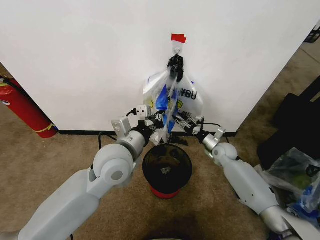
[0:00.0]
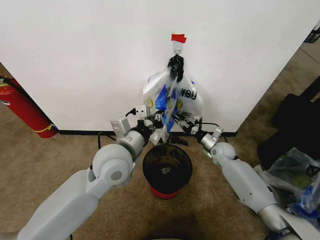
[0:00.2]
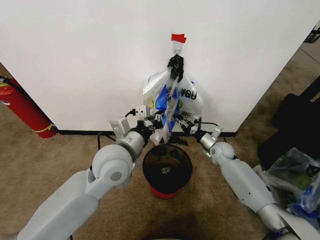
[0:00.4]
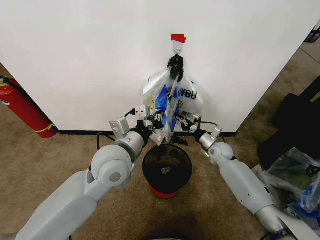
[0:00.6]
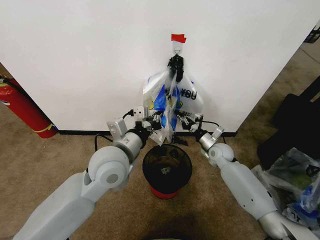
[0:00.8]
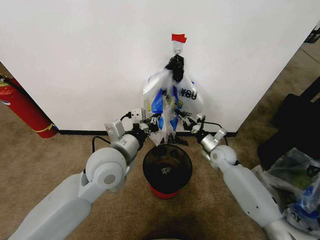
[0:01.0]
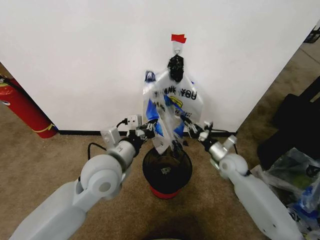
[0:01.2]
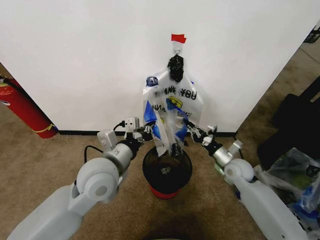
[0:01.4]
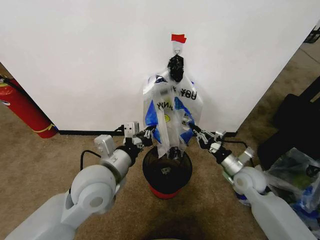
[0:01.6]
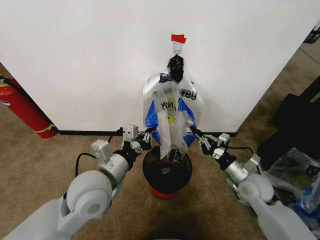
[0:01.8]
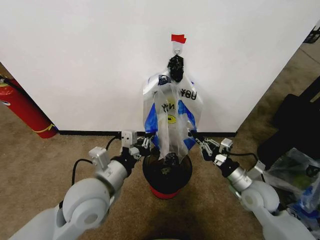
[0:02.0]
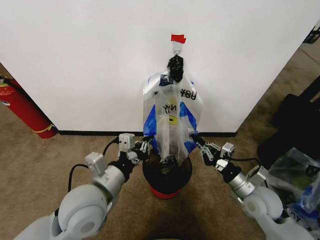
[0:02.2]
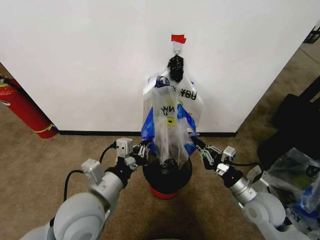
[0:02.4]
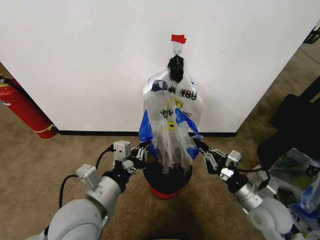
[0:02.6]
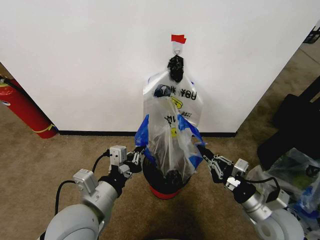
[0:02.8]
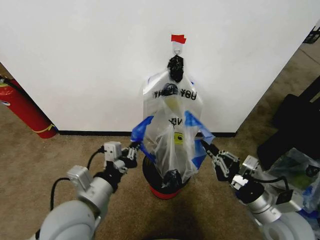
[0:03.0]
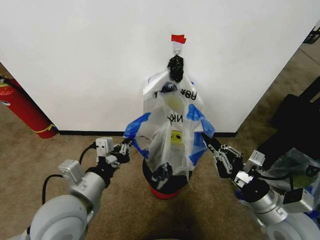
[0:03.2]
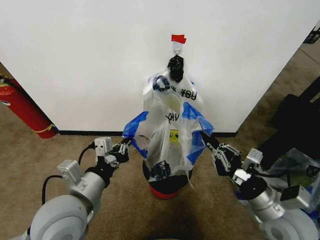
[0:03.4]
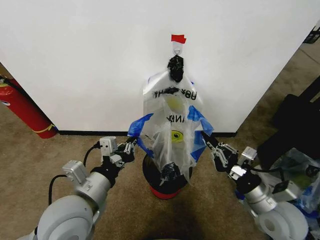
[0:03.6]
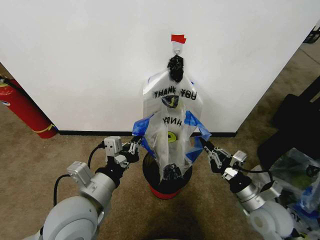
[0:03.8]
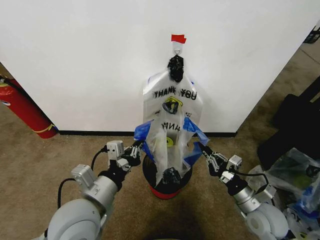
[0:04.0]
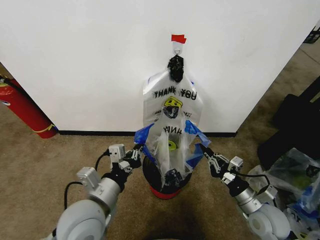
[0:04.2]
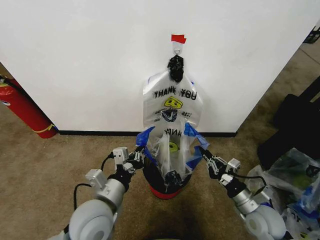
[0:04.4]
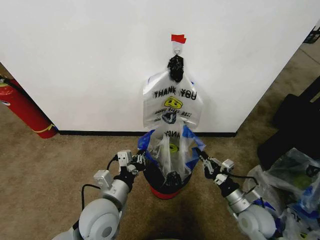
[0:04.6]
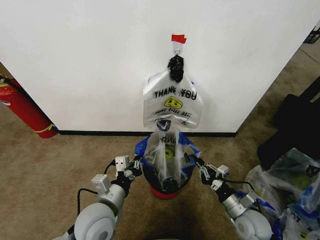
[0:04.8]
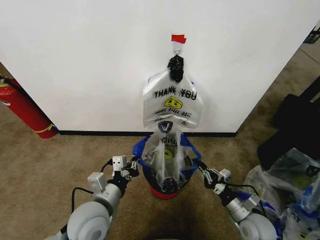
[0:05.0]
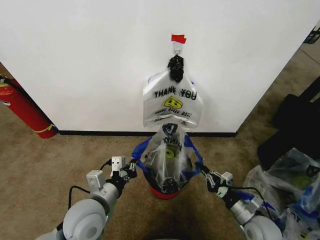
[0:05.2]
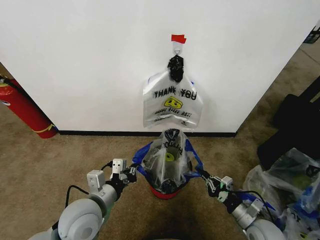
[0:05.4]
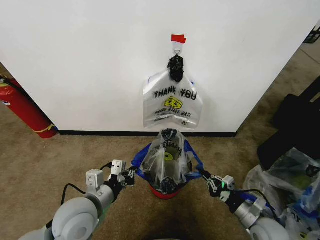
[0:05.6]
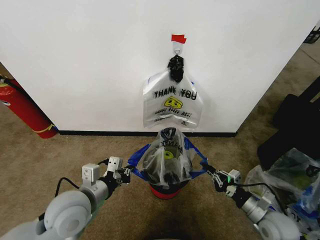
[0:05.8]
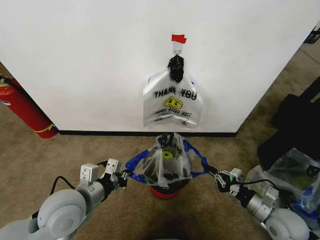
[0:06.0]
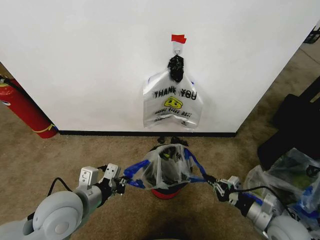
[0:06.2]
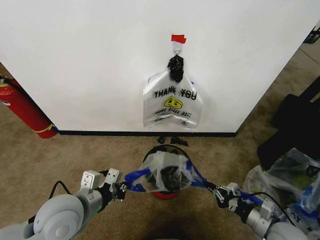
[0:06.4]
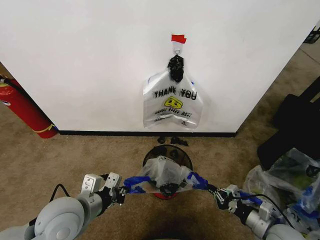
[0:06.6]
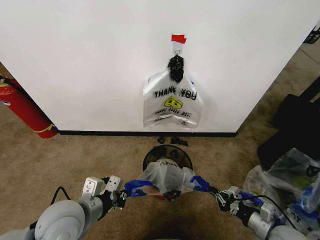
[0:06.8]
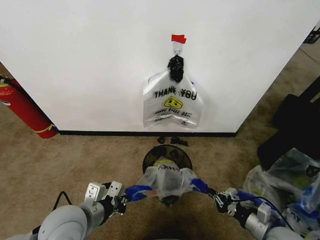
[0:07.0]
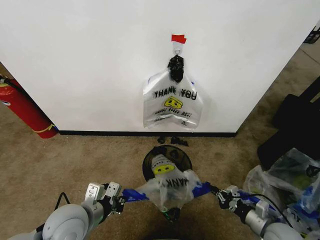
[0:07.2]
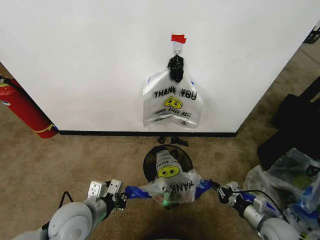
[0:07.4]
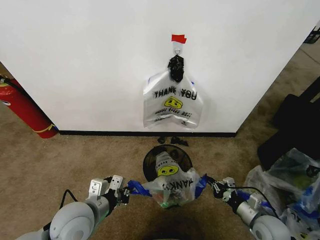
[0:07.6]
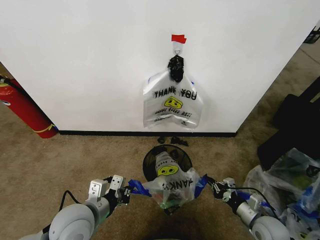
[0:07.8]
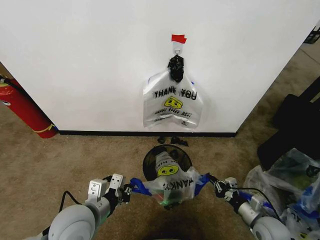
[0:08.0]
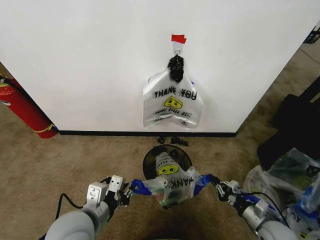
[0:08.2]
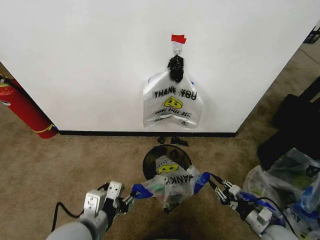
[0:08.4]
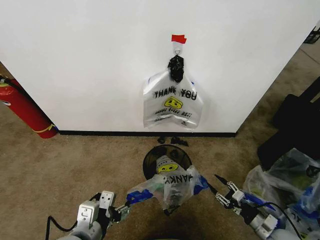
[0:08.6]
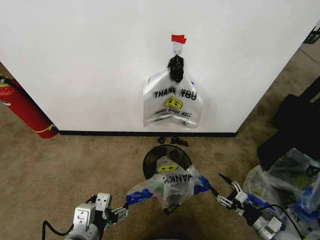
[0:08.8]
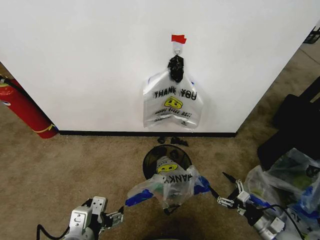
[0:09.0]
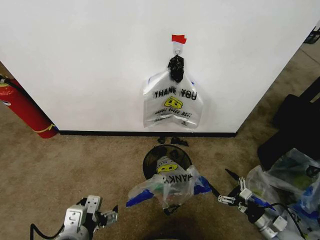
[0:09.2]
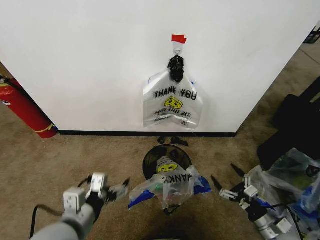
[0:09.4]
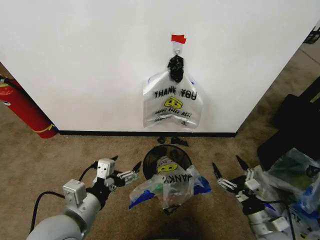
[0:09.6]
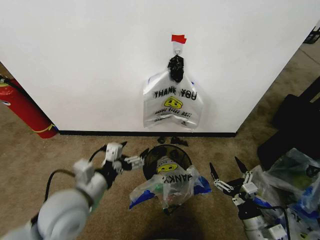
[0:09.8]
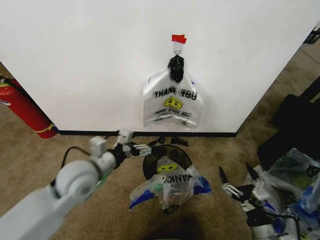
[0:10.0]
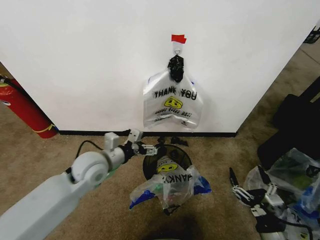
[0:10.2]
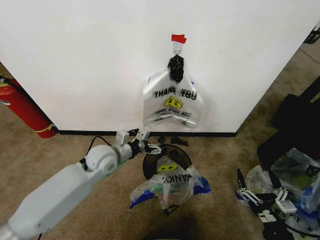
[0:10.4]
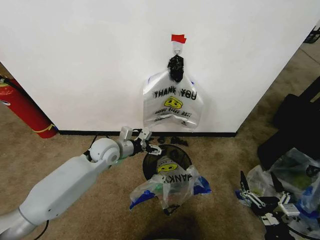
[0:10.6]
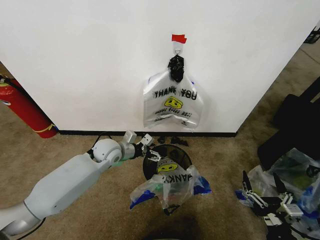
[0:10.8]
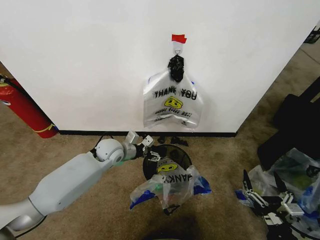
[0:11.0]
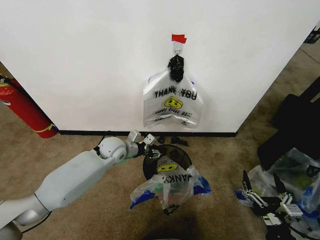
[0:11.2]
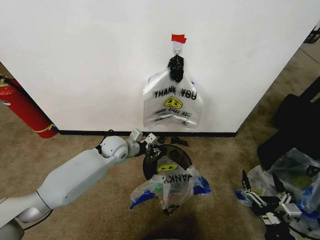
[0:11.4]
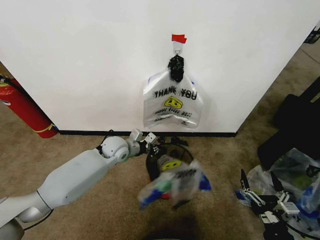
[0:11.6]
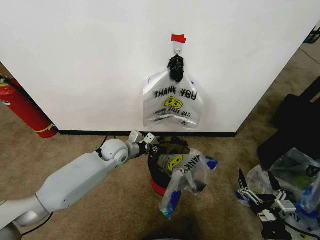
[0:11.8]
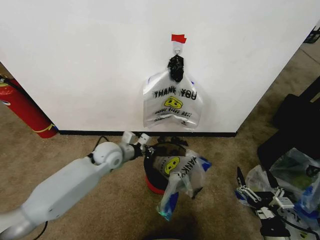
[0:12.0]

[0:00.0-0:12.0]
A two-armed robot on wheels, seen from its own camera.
Task of the whole recording: Pick up the garbage bag from the wall and place it over the trash bin.
0:00.0 to 0:01.6: The right gripper heads backward, covering roughly 15 cm, and closes its fingers. The left gripper changes place by some 5 cm.
0:01.6 to 0:03.0: The left gripper shifts some 10 cm backward, while the right gripper moves backward, about 15 cm.
0:03.0 to 0:04.4: The two grippers go roughly 5 cm downward.
0:04.4 to 0:06.0: The left gripper goes approximately 5 cm to the left. Meanwhile the right gripper heads to the right, covering approximately 5 cm.
0:06.0 to 0:07.6: The right gripper travels downward by roughly 5 cm.
0:07.6 to 0:09.0: The right gripper ends up some 5 cm from where it was, and opens; the left gripper moves backward, about 10 cm, and opens.
0:09.0 to 0:10.4: The left gripper travels forward by roughly 25 cm, while the right gripper goes approximately 15 cm upward, to the left and backward.
0:10.4 to 0:12.0: The left gripper closes.

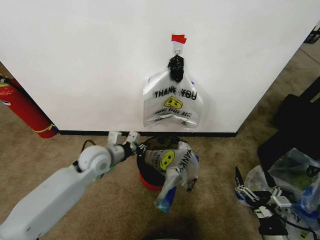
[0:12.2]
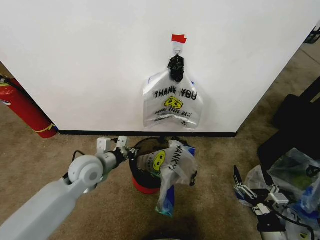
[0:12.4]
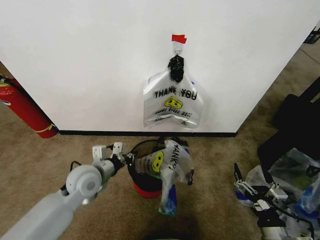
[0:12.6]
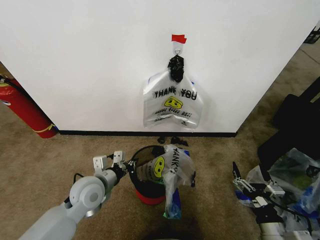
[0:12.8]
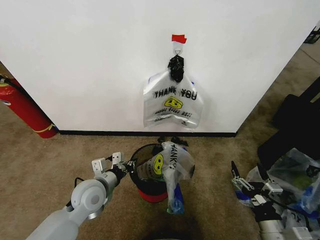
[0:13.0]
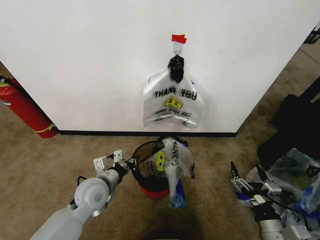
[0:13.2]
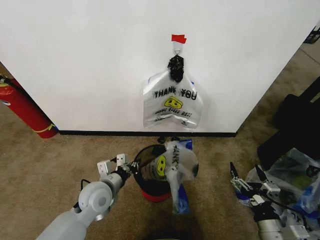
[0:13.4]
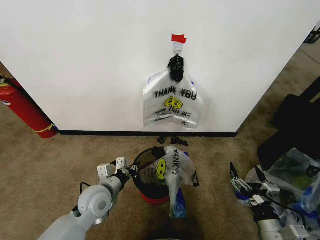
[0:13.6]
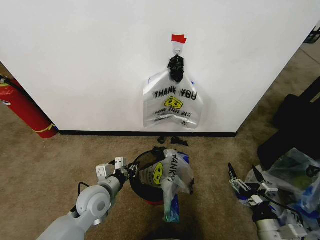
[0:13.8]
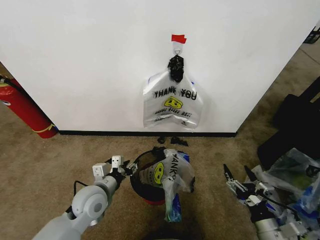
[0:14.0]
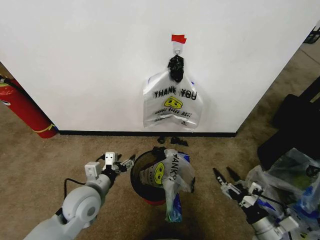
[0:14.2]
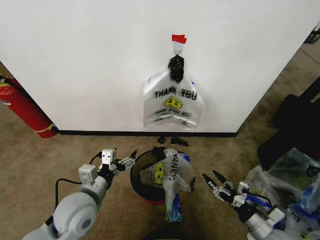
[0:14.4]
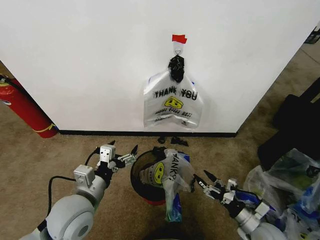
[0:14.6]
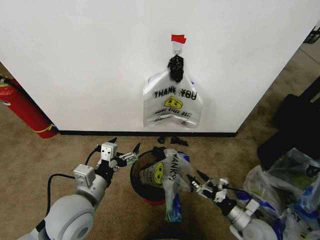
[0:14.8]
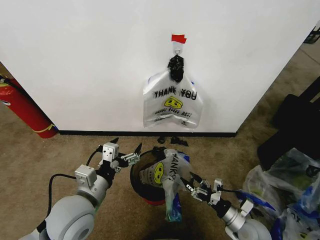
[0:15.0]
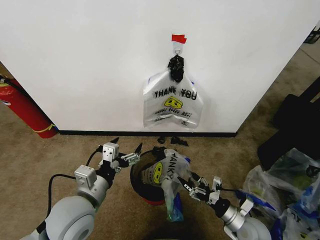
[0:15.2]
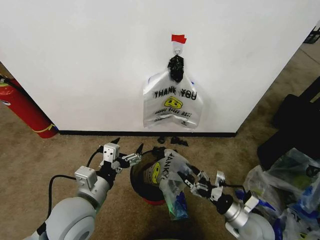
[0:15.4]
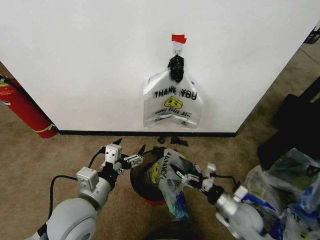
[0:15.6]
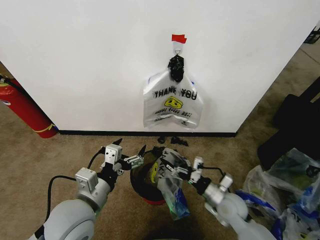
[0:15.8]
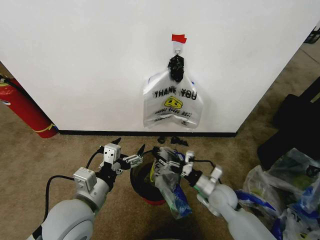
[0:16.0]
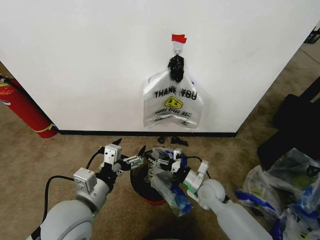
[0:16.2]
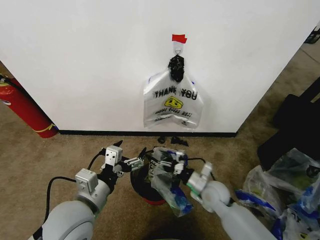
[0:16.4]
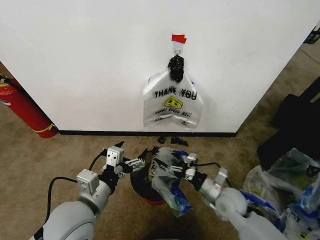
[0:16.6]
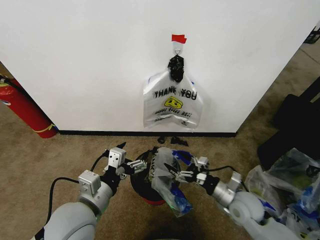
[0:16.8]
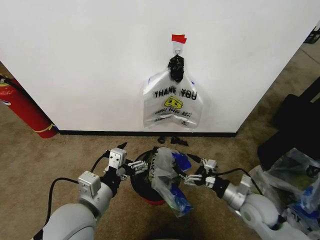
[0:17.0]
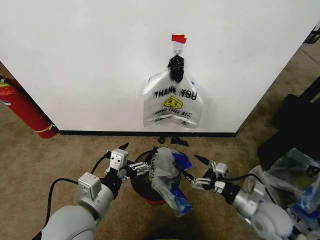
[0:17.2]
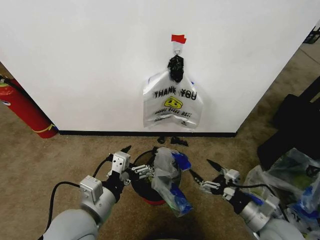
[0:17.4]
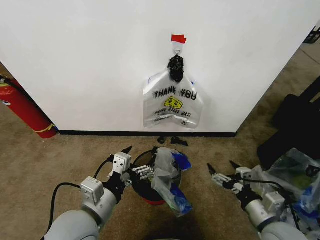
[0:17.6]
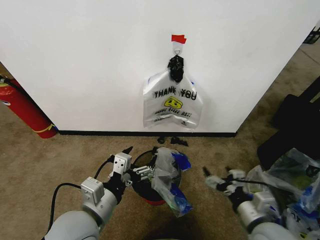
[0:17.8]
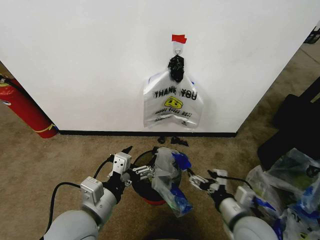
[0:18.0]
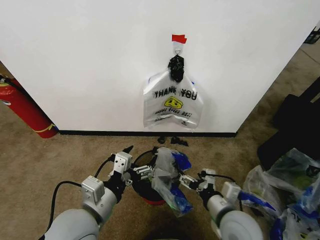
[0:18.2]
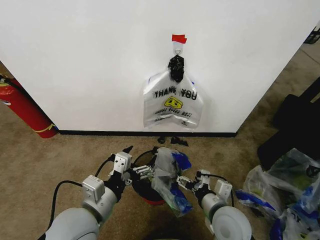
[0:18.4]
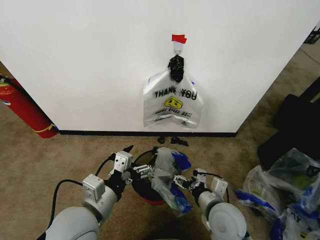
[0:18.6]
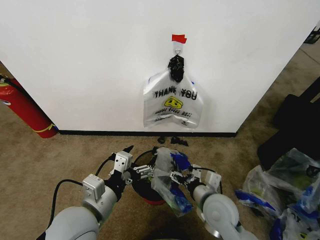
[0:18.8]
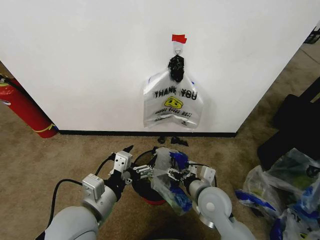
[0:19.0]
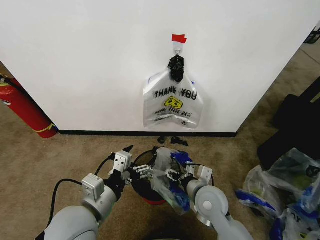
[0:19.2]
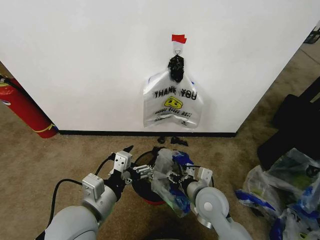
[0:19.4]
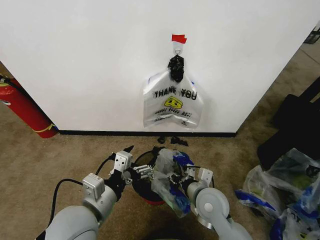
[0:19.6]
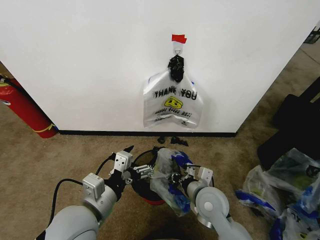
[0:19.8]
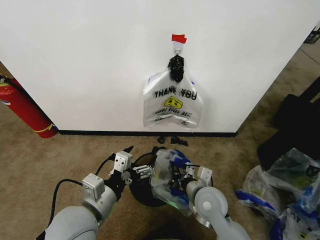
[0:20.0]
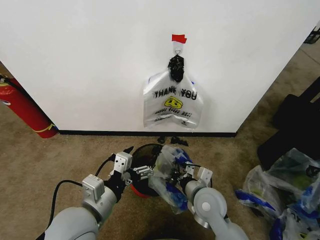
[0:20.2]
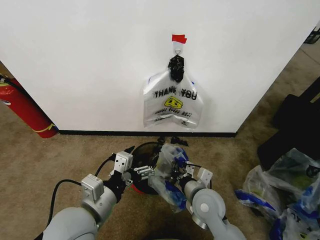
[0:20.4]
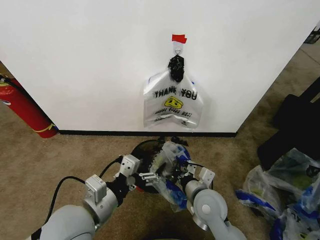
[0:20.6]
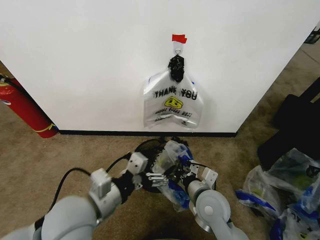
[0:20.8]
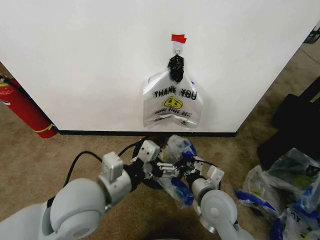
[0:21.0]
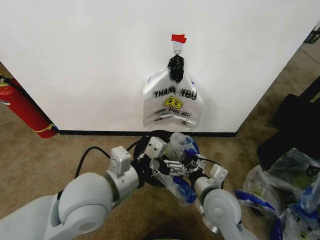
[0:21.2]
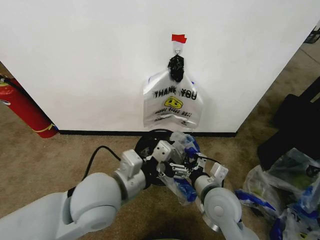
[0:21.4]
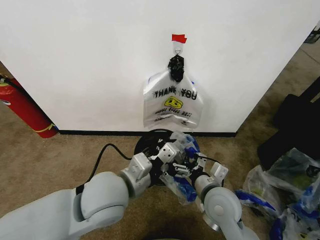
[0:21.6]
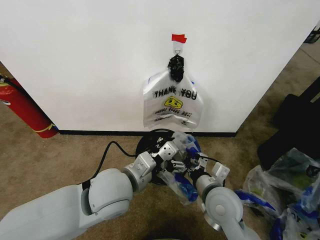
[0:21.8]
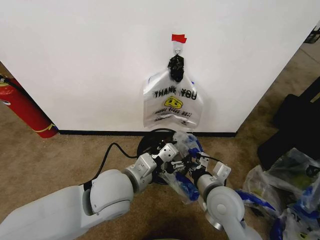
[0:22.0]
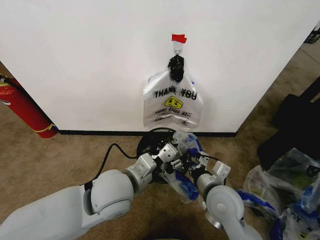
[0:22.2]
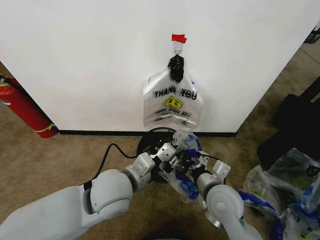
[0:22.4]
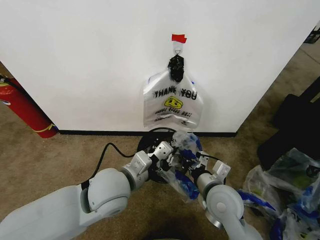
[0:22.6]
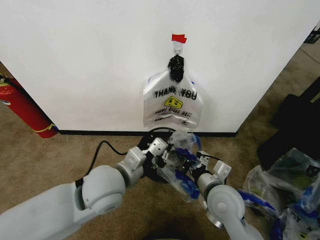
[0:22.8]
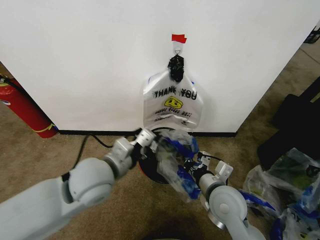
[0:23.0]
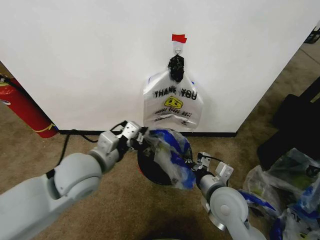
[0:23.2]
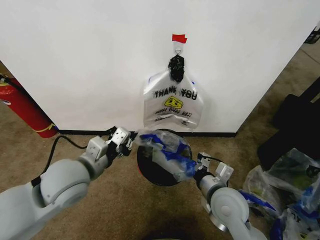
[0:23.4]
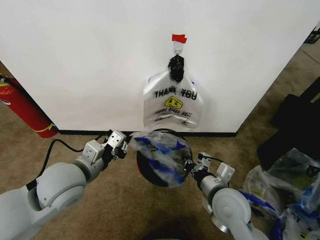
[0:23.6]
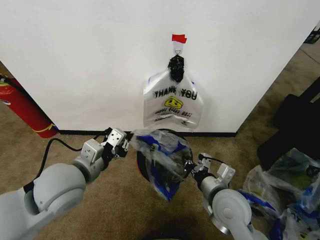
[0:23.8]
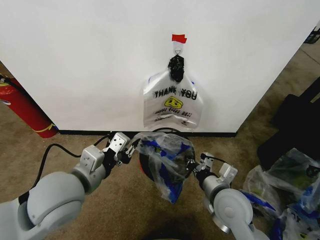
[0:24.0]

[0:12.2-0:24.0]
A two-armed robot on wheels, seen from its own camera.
Task of the whole recording: Pick up the garbage bag from the wall and place it over the trash bin.
0:12.2 to 0:13.6: The left gripper heads backward and downward, covering about 10 cm.
0:13.6 to 0:15.2: The right gripper travels forward and downward by roughly 10 cm. Meanwhile the left gripper shifts approximately 10 cm upward and backward, and opens.
0:15.2 to 0:16.6: The right gripper is displaced forward, upward and to the left by approximately 10 cm.
0:16.6 to 0:18.2: The right gripper travels backward and upward by approximately 10 cm, and moves approximately 10 cm to the right and comes back.
0:18.2 to 0:19.6: The right gripper travels forward by about 5 cm, and closes its fingers.
0:19.6 to 0:21.0: The right gripper closes up; the left gripper shifts approximately 5 cm upward.
0:21.0 to 0:22.6: The left gripper ends up some 5 cm from where it was, and closes its fingers.
0:22.6 to 0:24.0: The left gripper goes approximately 10 cm to the left.
